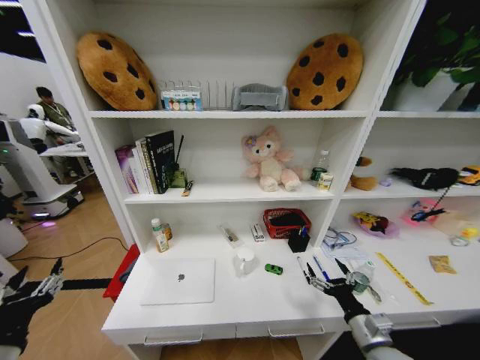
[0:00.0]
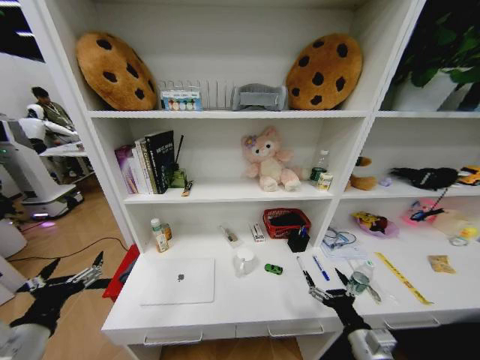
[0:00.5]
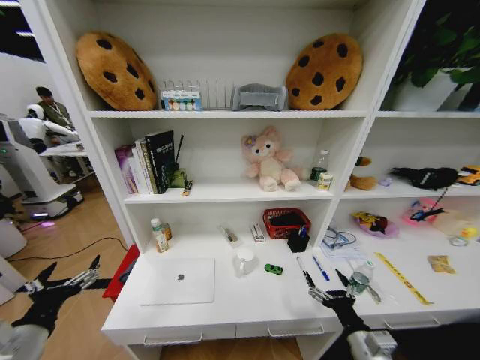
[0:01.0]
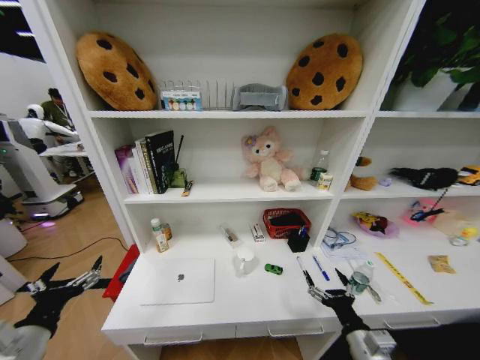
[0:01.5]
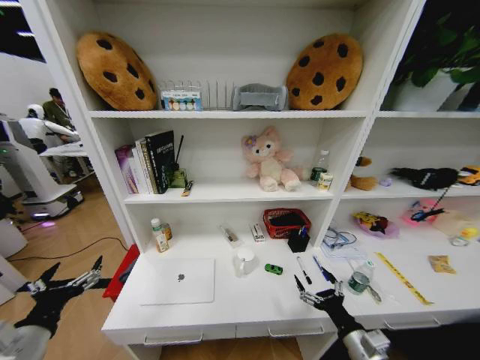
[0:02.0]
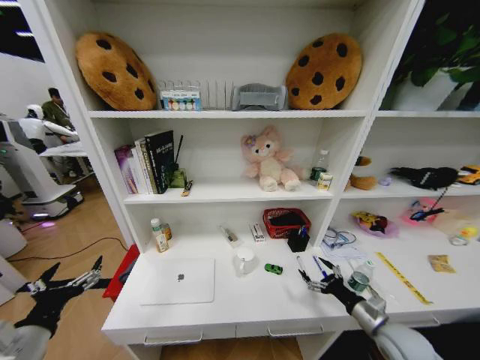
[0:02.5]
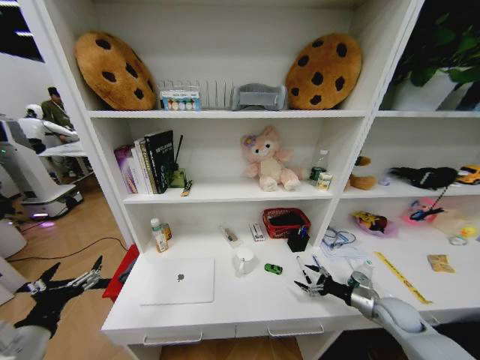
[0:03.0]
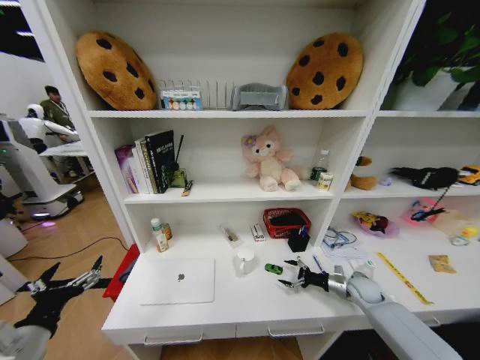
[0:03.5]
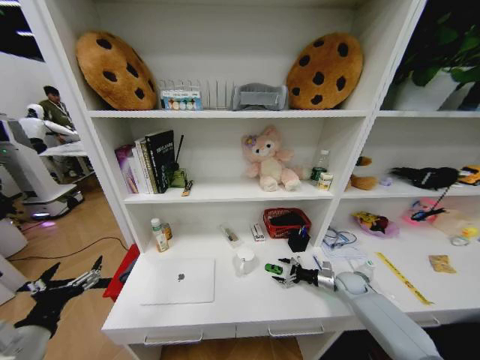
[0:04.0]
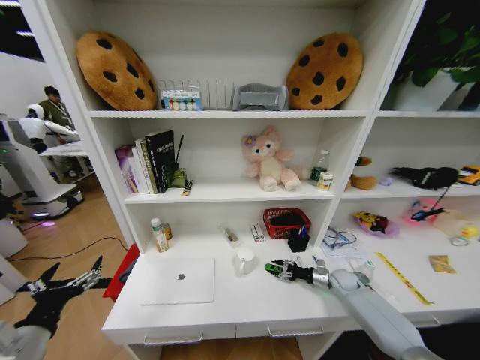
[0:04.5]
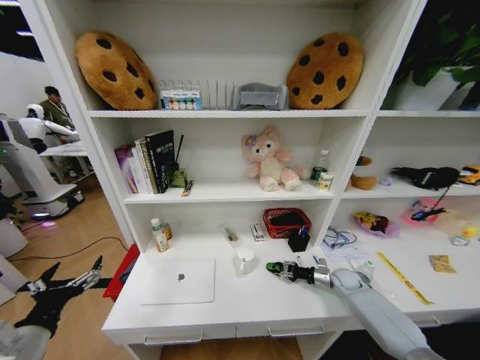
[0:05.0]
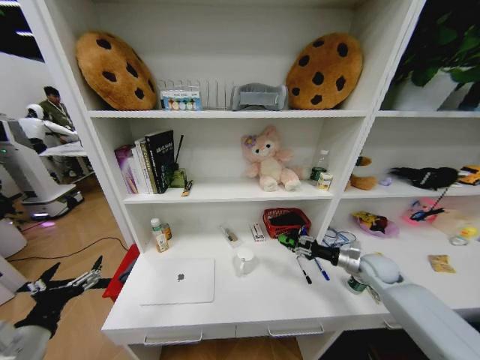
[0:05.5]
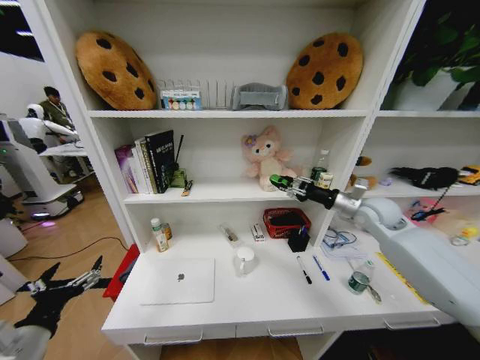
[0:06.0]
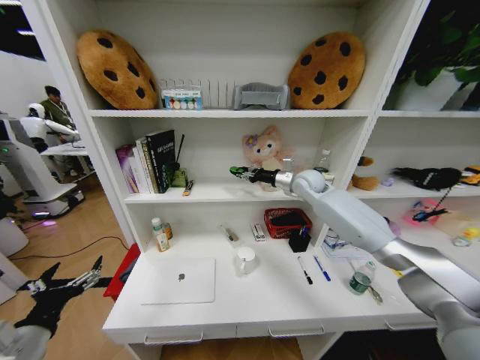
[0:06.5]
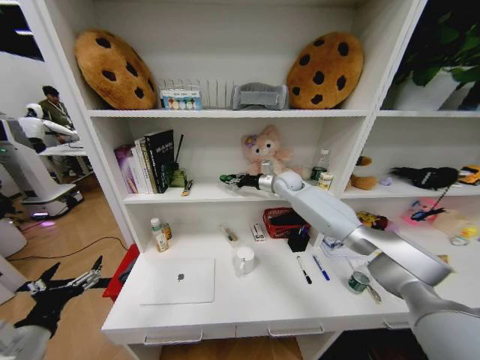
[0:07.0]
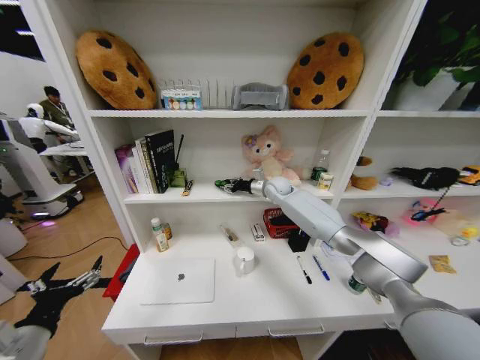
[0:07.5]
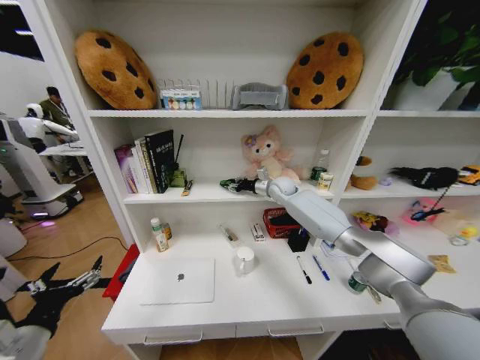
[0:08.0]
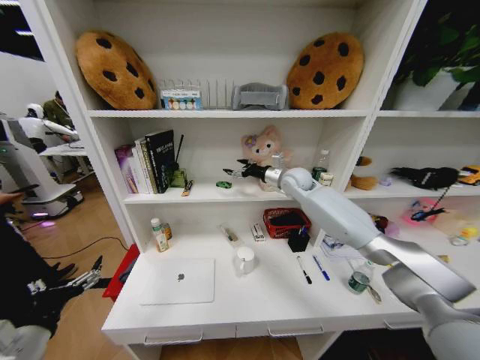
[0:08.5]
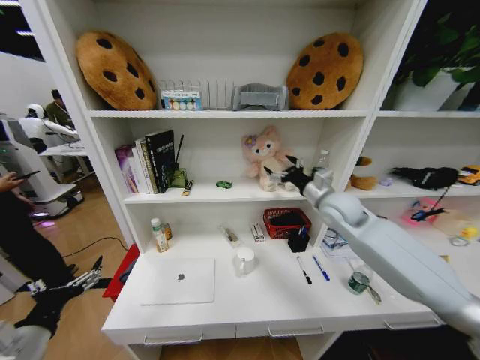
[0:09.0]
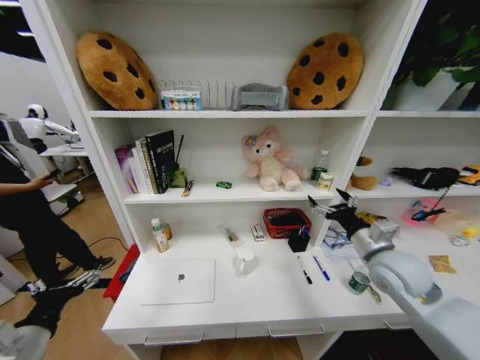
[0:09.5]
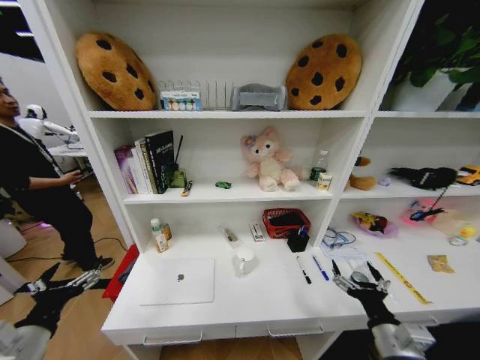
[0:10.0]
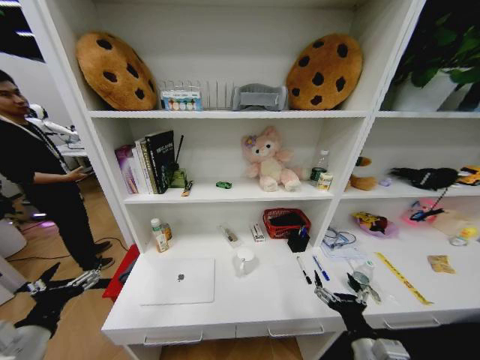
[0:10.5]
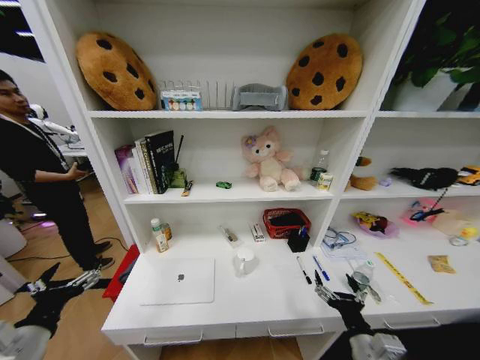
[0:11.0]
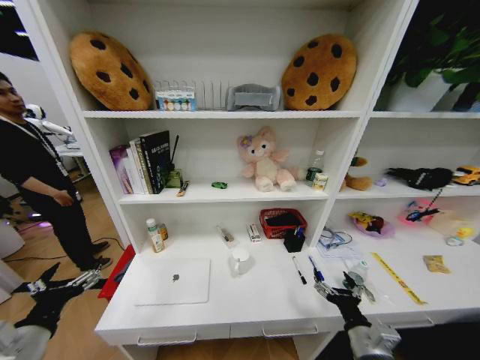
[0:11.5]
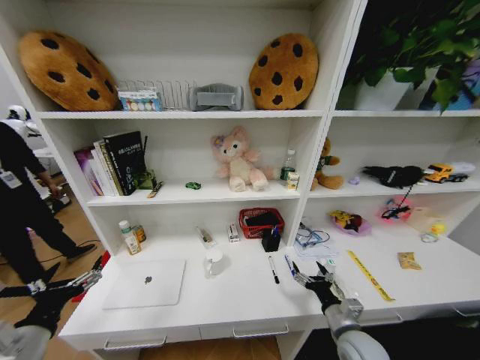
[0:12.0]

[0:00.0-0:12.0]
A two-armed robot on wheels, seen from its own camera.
Task of the whole recording: Organize the objects on the table.
0:00.0 to 0:02.0: The left gripper opens its fingers.
0:02.0 to 0:04.0: The right gripper travels forward and to the right by about 30 cm.
0:04.0 to 0:06.0: The right gripper heads upward, covering some 35 cm, and closes its fingers.
0:06.0 to 0:08.0: The right gripper shifts some 25 cm to the left and forward.
0:08.0 to 0:10.0: The right gripper moves backward, roughly 50 cm, and opens up.
0:10.0 to 0:12.0: The right gripper travels downward and forward by some 10 cm.

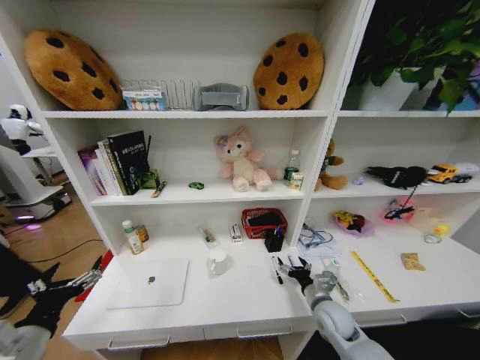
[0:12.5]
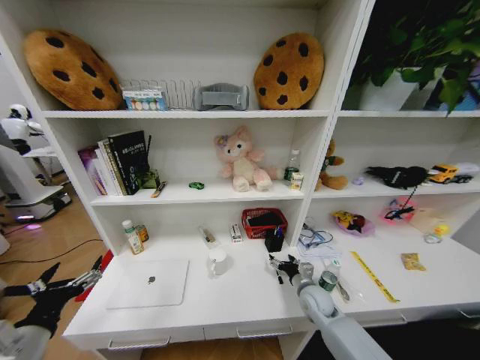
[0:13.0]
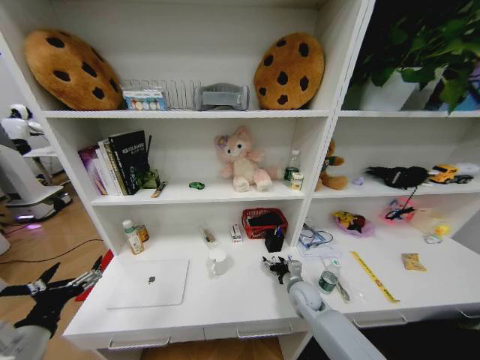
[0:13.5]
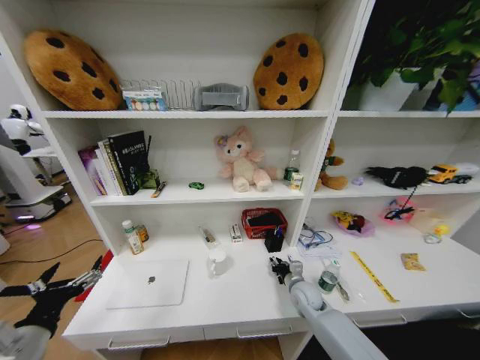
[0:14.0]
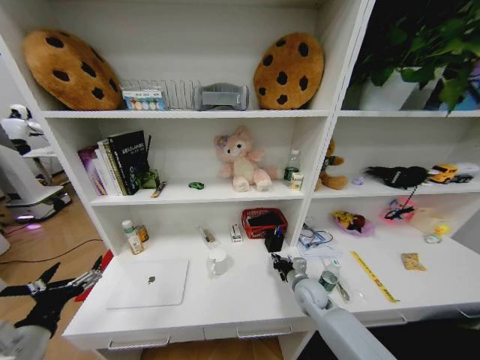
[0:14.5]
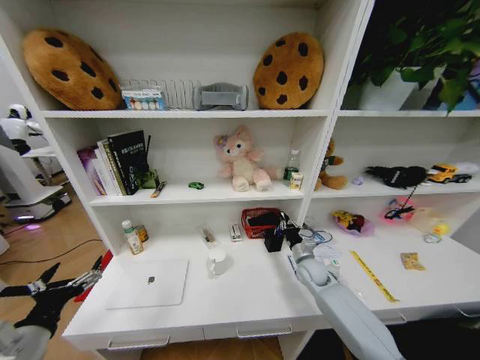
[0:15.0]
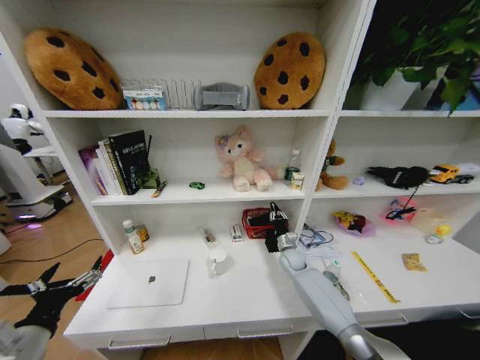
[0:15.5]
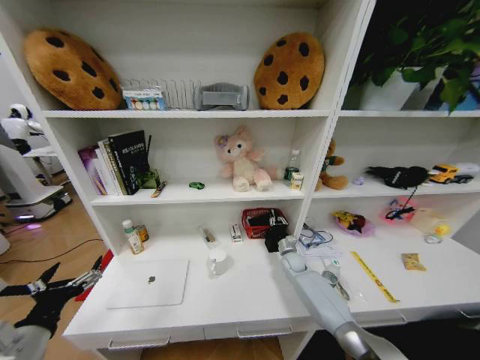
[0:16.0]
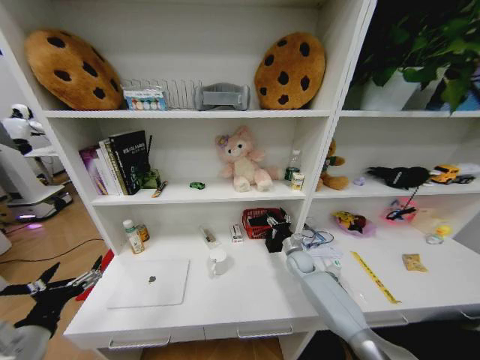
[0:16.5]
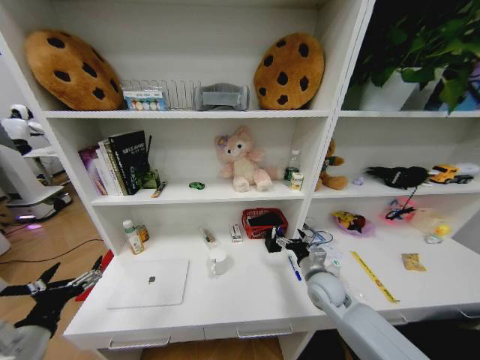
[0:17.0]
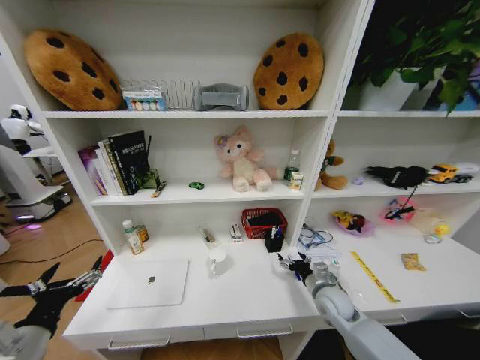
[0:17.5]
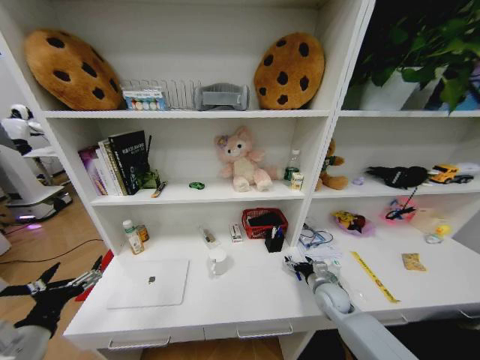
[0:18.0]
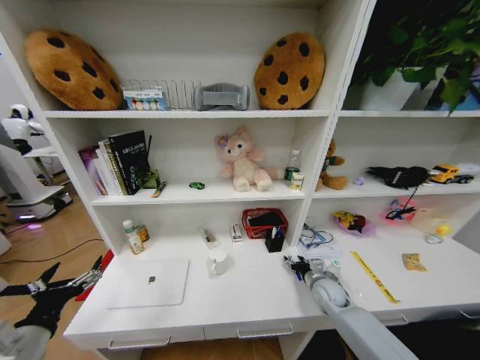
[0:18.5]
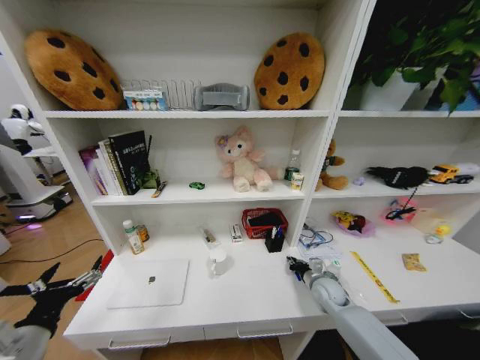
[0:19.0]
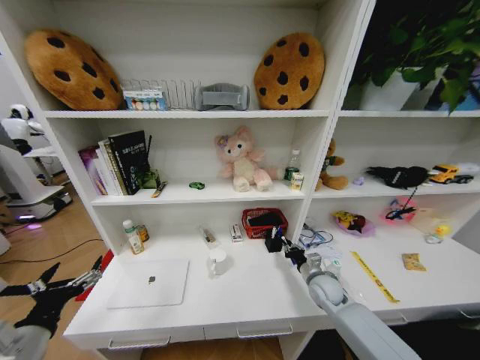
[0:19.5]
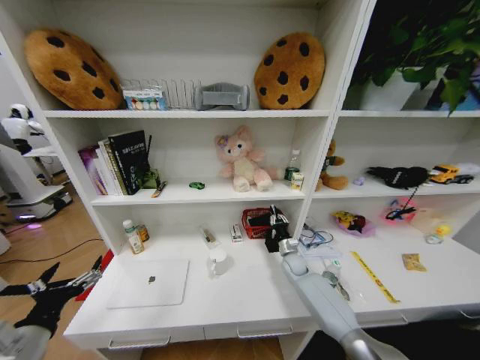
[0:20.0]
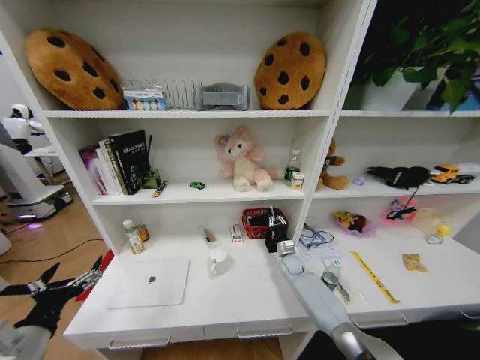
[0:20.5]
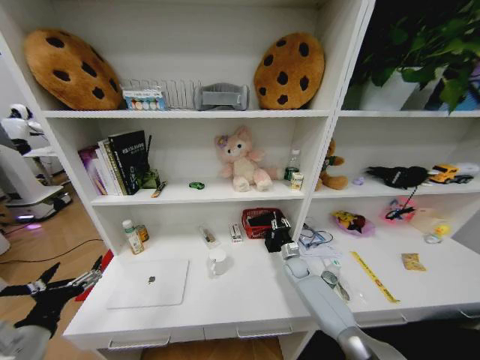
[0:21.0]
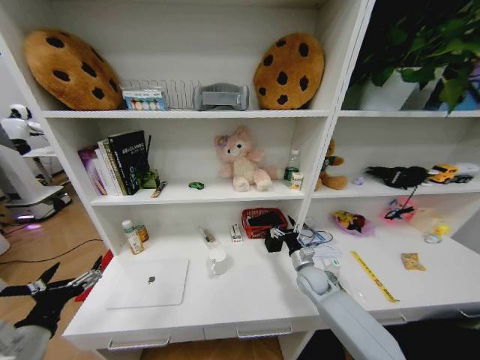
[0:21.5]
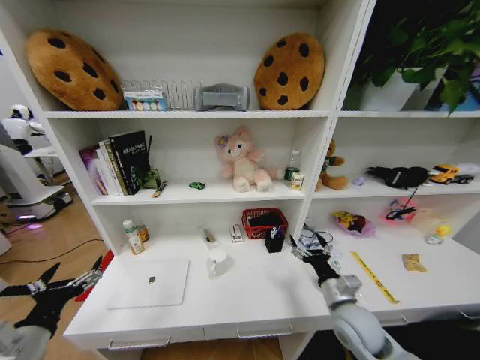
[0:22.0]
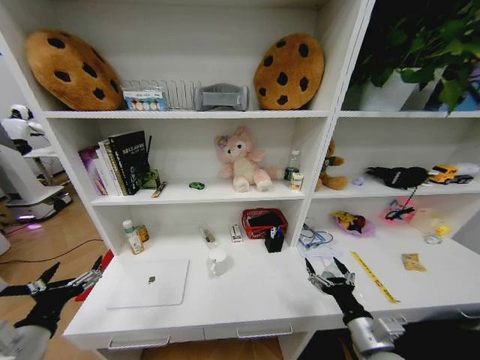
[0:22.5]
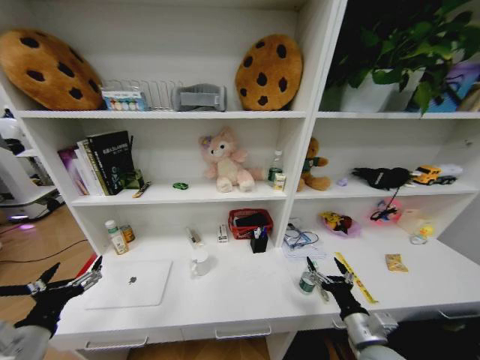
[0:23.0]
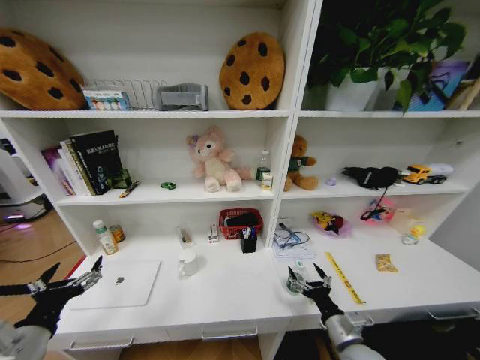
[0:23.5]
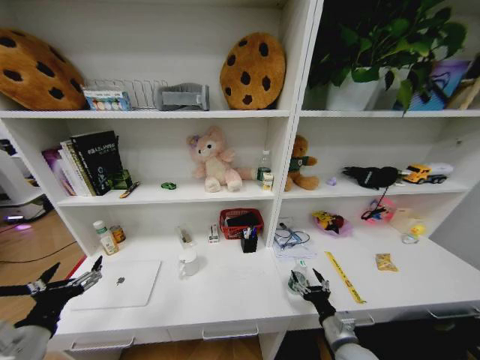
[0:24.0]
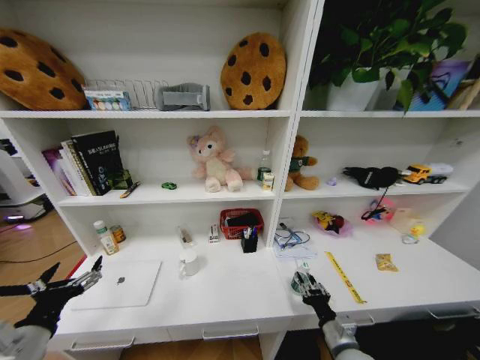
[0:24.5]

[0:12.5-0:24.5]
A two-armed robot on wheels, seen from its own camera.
Task of the whole recording: Organize the objects on the table.
0:12.5 to 0:14.5: The right gripper heads forward, covering some 10 cm, and closes up.
0:14.5 to 0:16.5: The right gripper travels forward by some 10 cm, and opens its fingers.
0:16.5 to 0:18.5: The right gripper travels backward and to the right by roughly 10 cm.
0:18.5 to 0:20.5: The right gripper is displaced forward and to the left by roughly 15 cm, and closes up.
0:20.5 to 0:22.5: The right gripper is displaced backward by approximately 35 cm, and opens up.
0:22.5 to 0:24.5: The right gripper moves downward, roughly 5 cm, and closes its fingers.

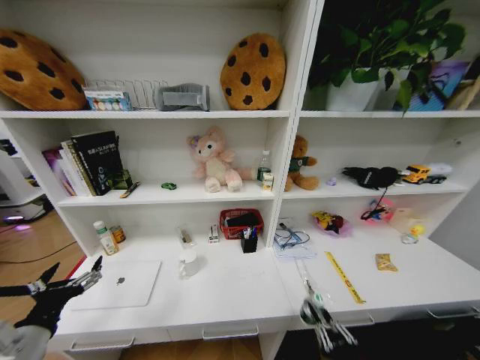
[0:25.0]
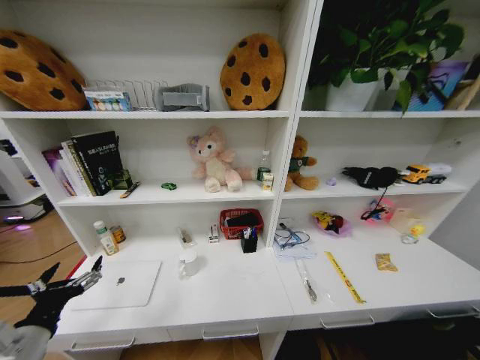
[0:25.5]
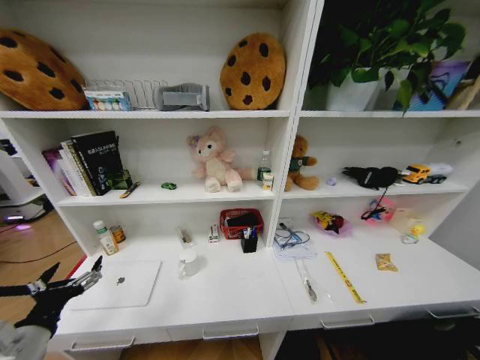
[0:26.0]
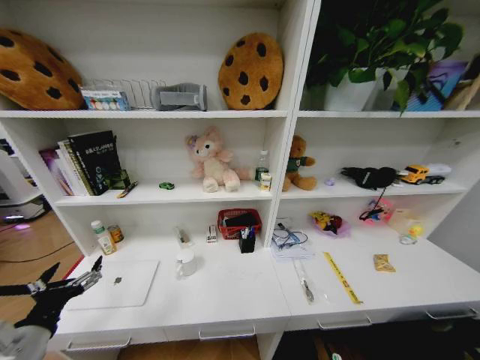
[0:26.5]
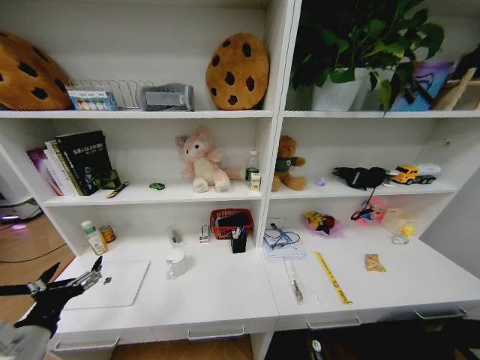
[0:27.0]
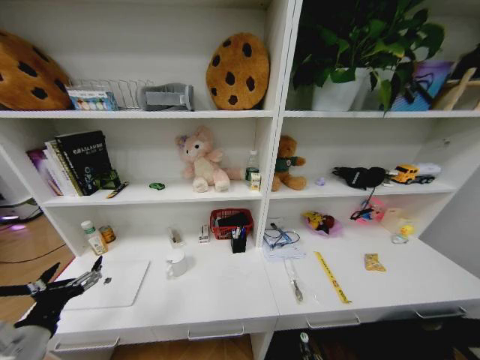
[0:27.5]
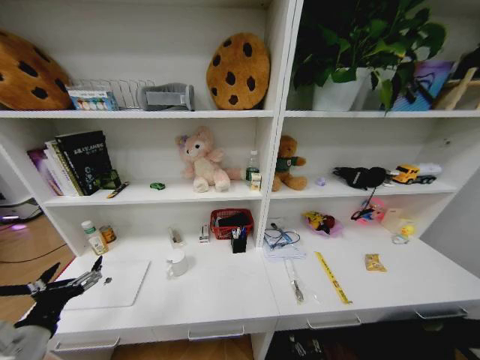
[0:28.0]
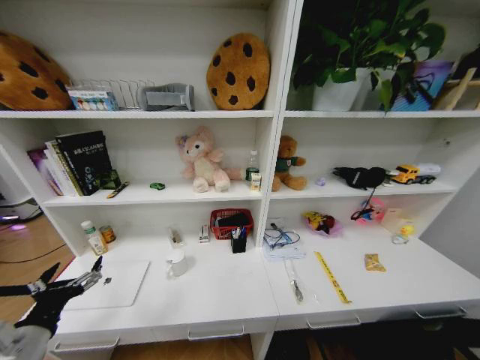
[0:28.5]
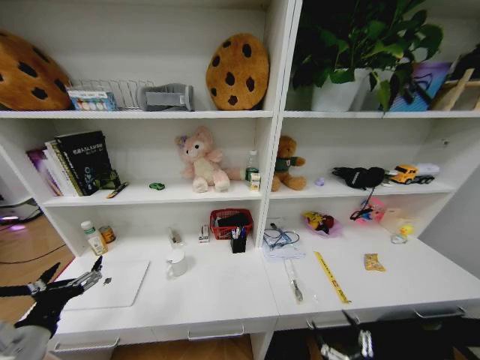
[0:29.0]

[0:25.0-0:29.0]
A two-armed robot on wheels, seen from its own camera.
Task of the whole recording: Organize the objects on the table.
0:25.0 to 0:27.0: The right gripper shifts about 30 cm downward.
0:27.0 to 0:29.0: The right gripper shifts some 25 cm upward, and opens up.
